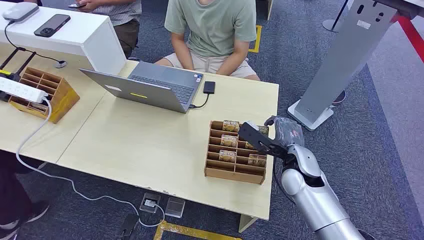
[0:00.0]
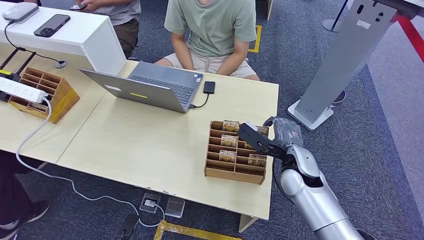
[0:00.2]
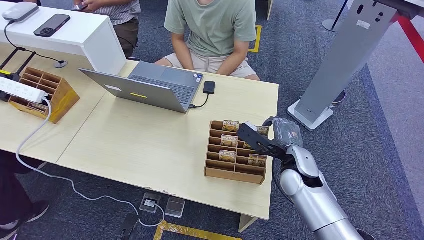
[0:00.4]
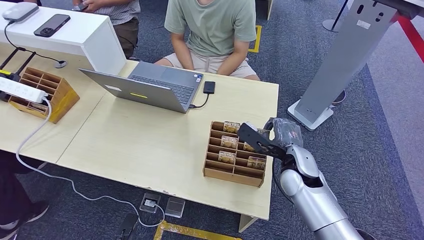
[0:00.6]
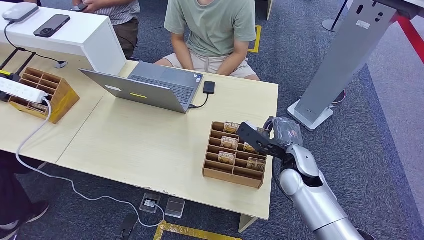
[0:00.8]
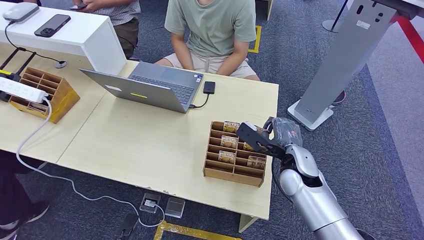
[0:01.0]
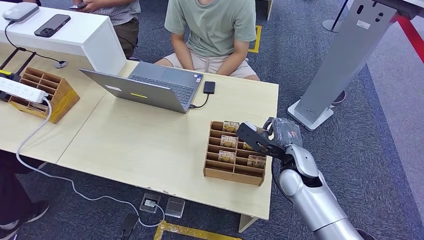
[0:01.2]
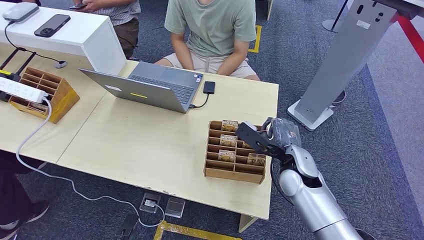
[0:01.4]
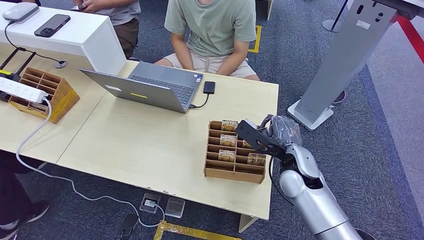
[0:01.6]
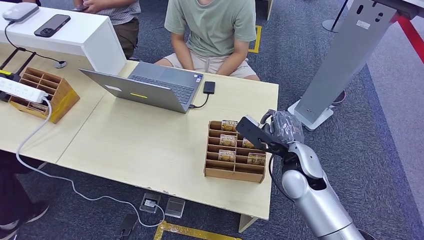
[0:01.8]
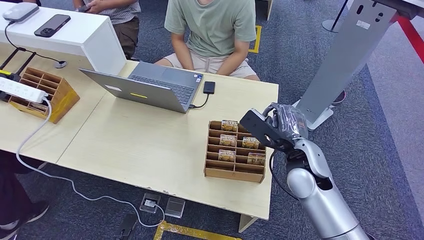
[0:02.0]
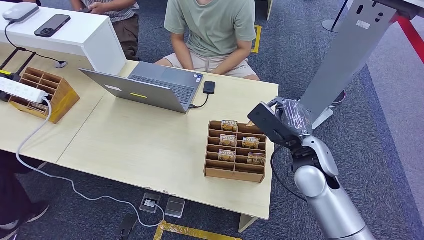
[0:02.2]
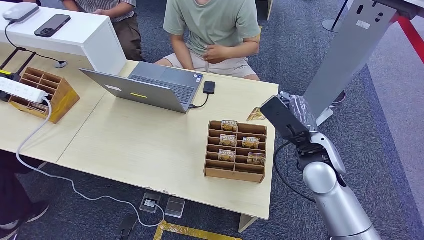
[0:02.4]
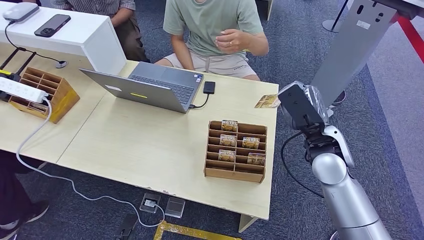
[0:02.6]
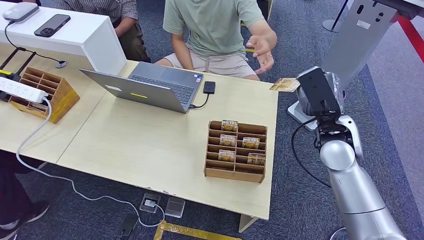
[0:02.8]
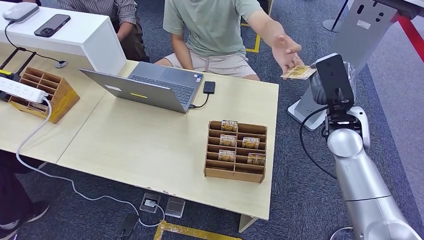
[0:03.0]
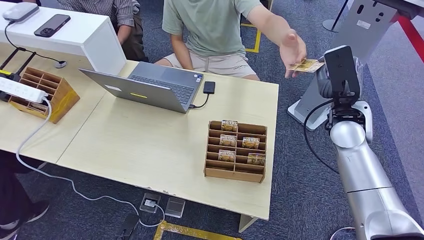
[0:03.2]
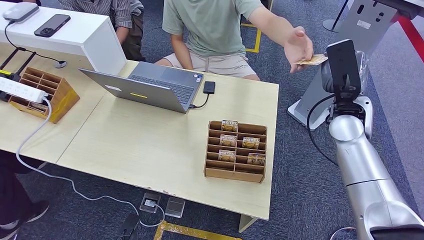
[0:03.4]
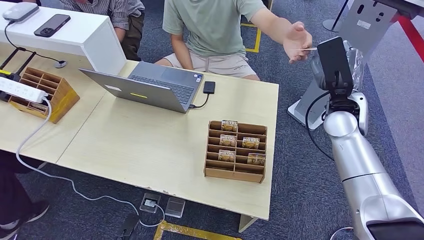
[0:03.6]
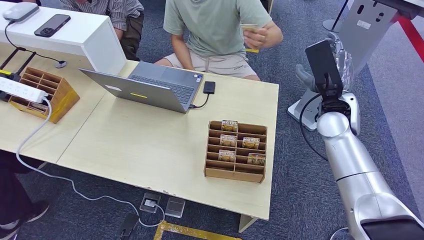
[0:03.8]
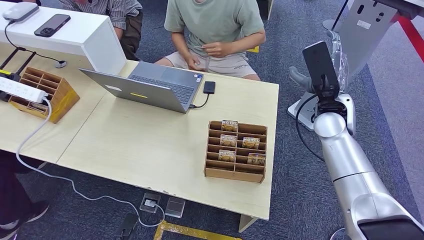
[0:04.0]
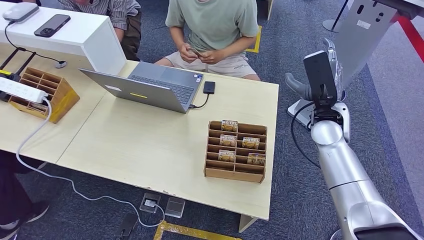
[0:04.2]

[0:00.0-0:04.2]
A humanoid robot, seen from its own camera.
Step, 0:00.0 to 0:01.6: Pick up the key card from the card box.
Step, 0:03.2 to 0:04.2: Hand the key card to the target.
0:01.4 to 0:02.8: The right hand heads upward and to the right, covering roughly 10 cm.
0:02.8 to 0:04.2: The hands move only a little.
